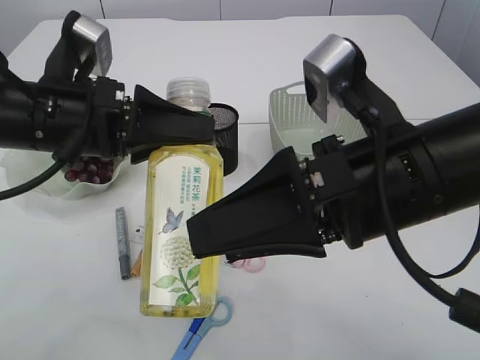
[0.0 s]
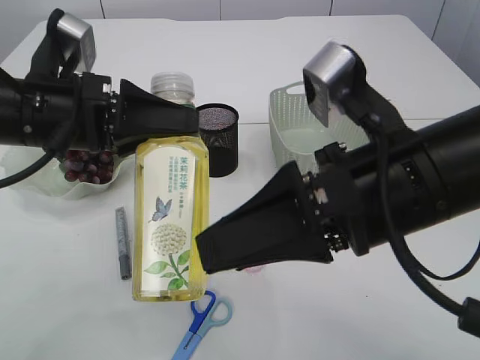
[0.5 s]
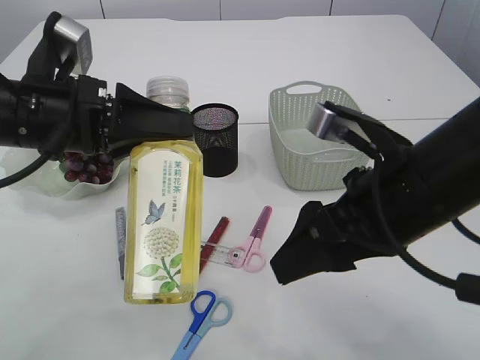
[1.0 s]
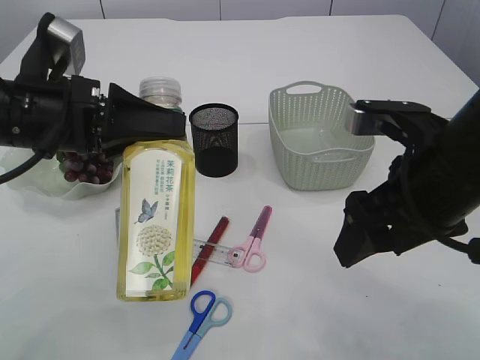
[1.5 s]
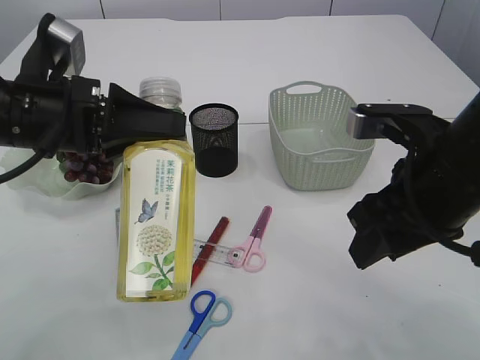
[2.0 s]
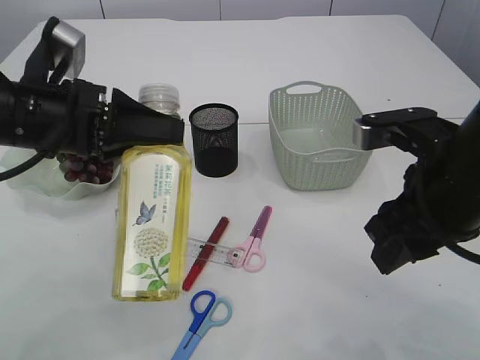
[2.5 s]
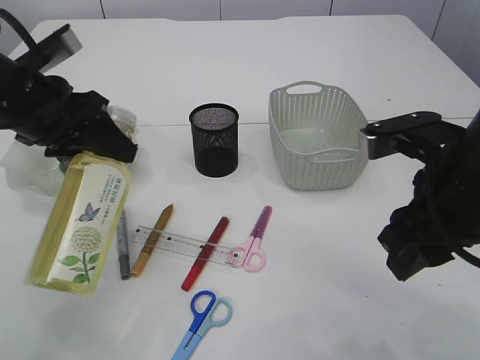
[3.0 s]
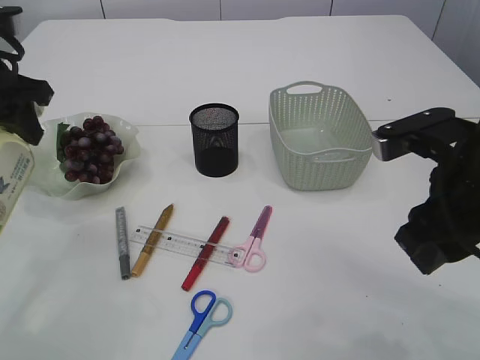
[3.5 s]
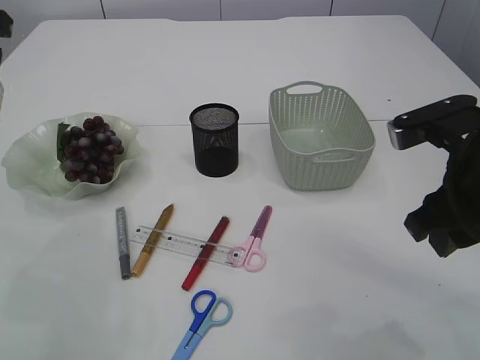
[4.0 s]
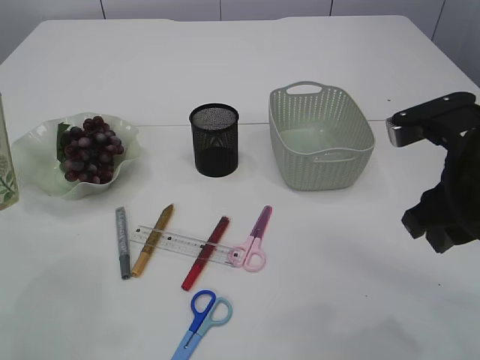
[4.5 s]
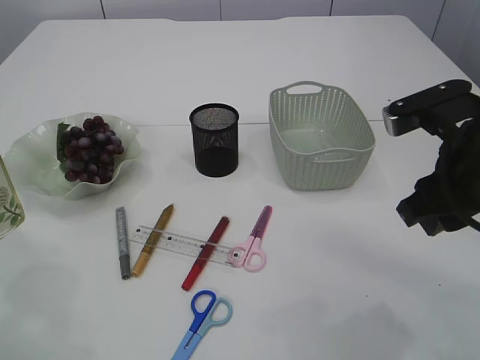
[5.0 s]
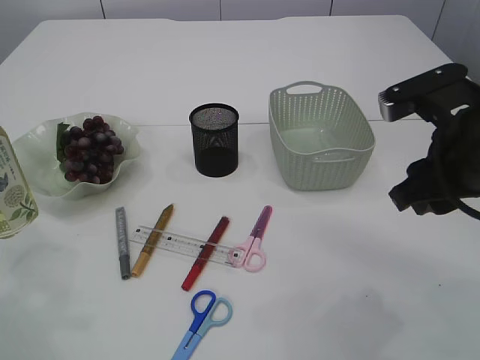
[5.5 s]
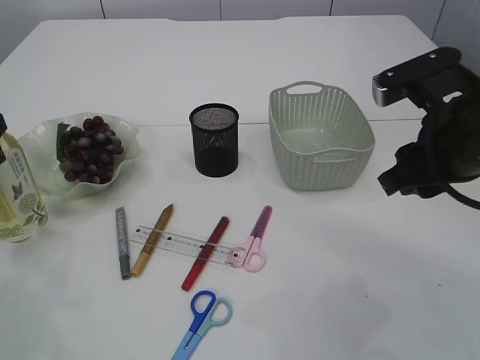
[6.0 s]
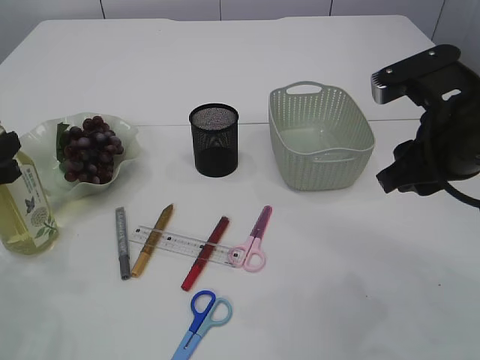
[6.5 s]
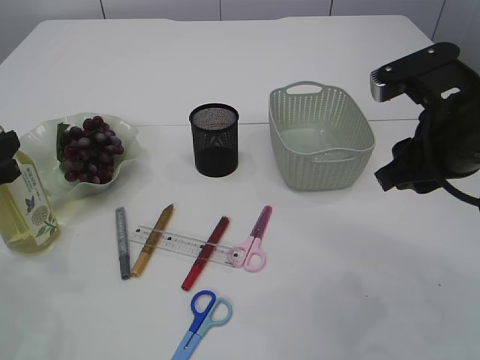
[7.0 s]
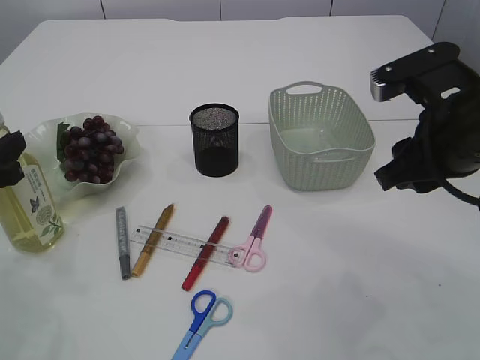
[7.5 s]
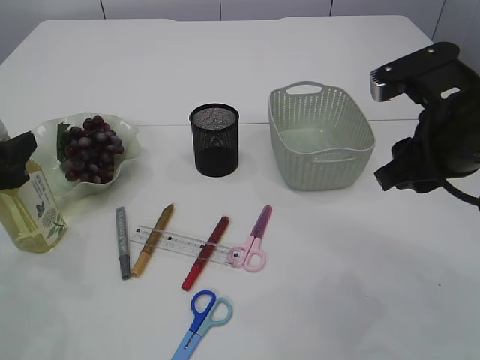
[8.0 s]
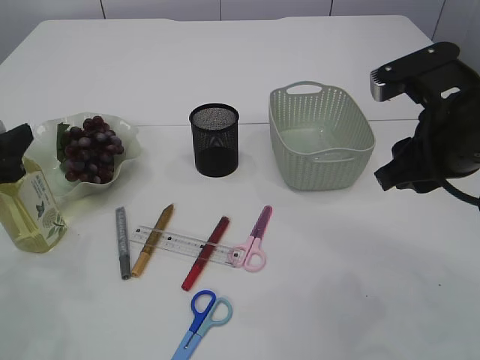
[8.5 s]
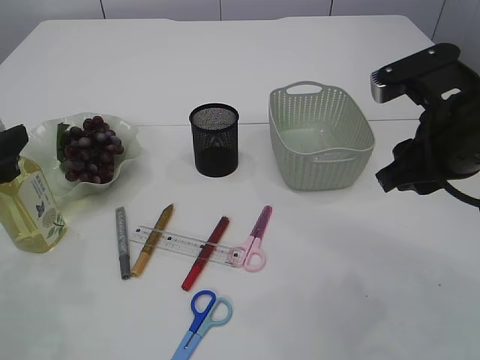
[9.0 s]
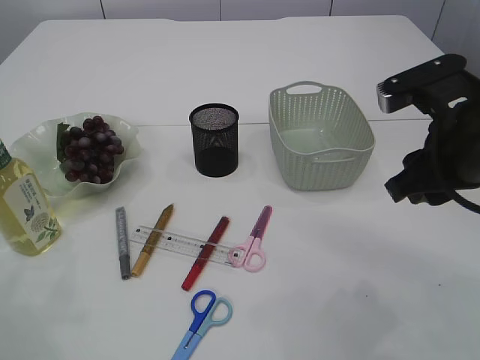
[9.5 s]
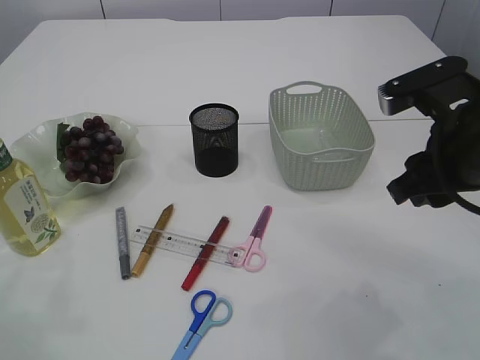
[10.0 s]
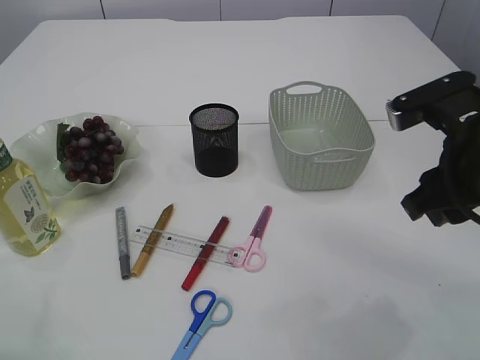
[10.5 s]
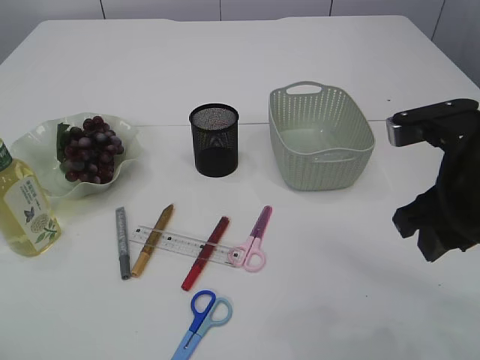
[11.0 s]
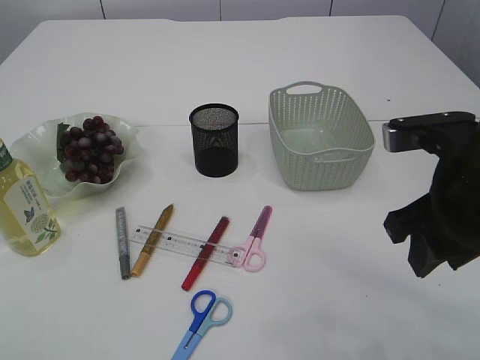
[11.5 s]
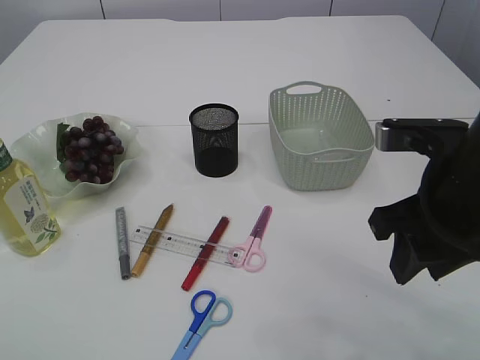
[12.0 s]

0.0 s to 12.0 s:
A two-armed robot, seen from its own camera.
Step, 1.0 to 10.5 s: Place the bottle.
0.0 to 2.0 s: The right gripper heads to the right, covering some 5 cm, and closes its fingers.
2.0 to 4.0 s: The left gripper goes some 15 cm upward and to the left.
4.0 to 6.0 s: The left gripper shifts about 15 cm downward and backward.
6.0 to 8.0 s: The left gripper opens its fingers.
8.0 to 10.0 s: The left gripper shifts roughly 10 cm upward.

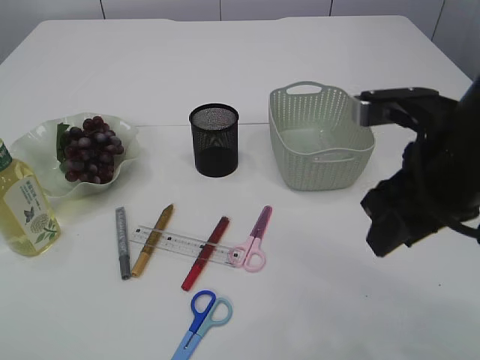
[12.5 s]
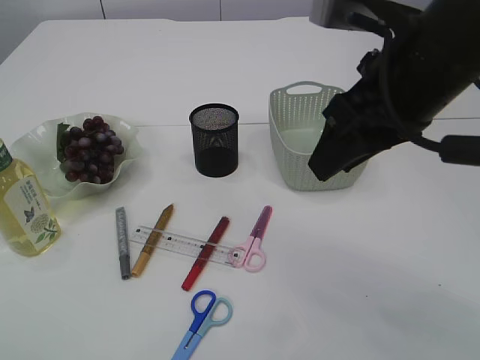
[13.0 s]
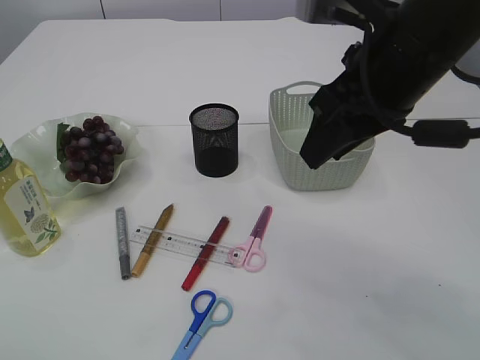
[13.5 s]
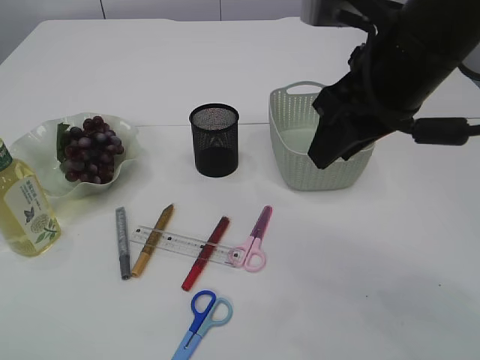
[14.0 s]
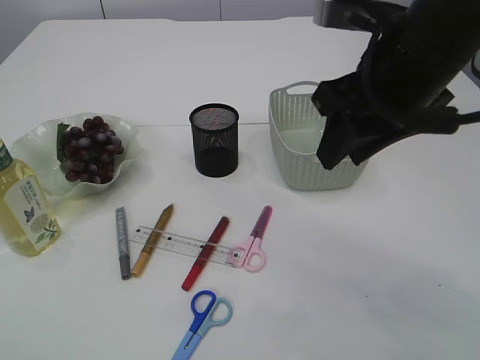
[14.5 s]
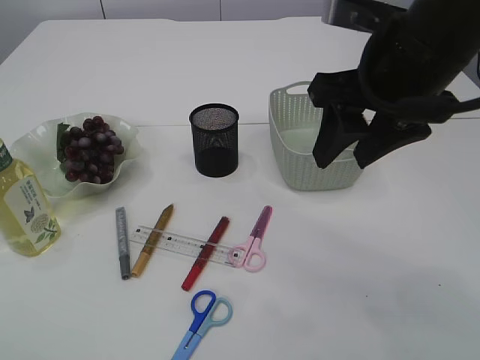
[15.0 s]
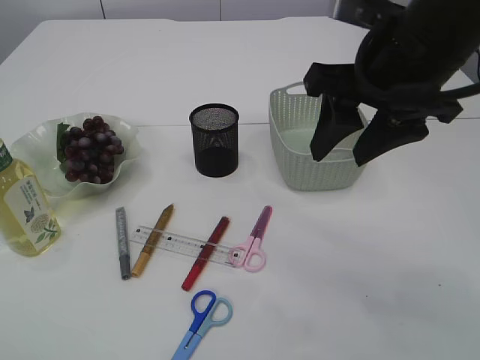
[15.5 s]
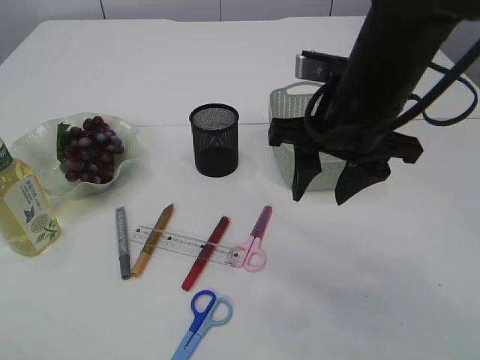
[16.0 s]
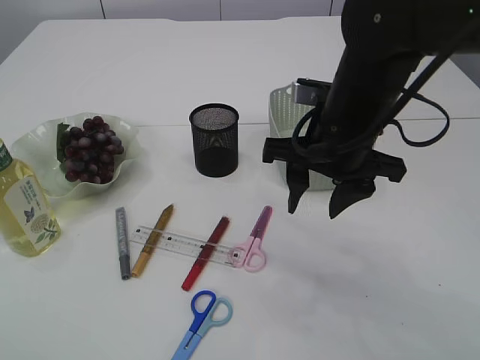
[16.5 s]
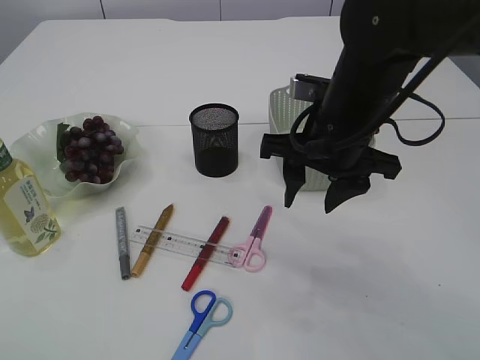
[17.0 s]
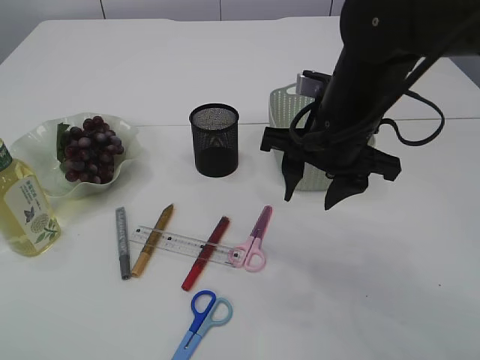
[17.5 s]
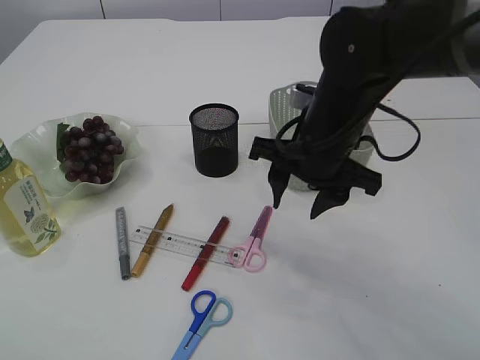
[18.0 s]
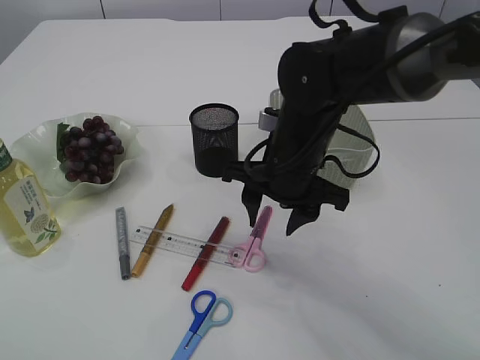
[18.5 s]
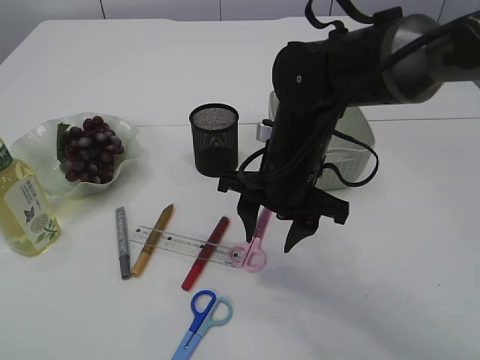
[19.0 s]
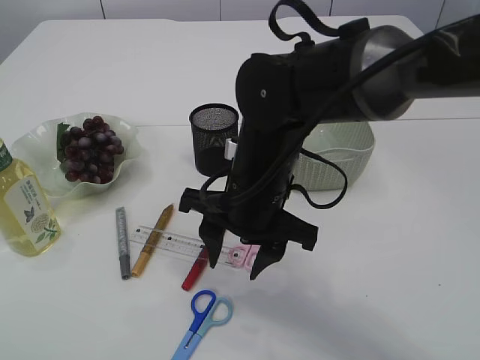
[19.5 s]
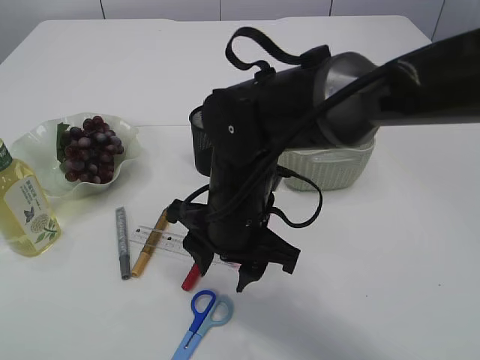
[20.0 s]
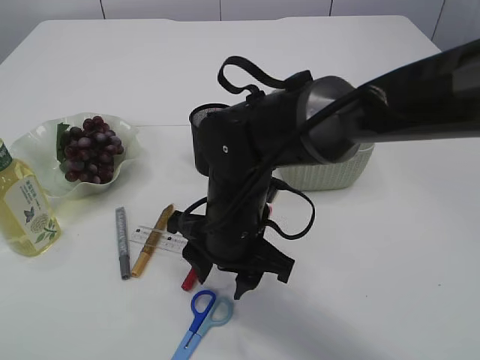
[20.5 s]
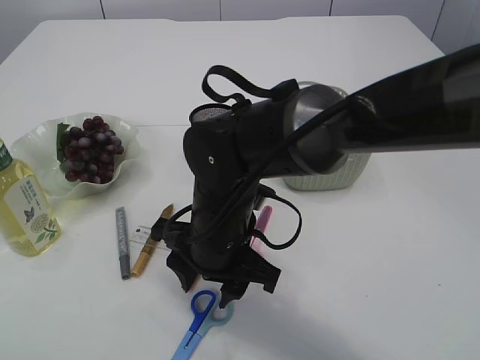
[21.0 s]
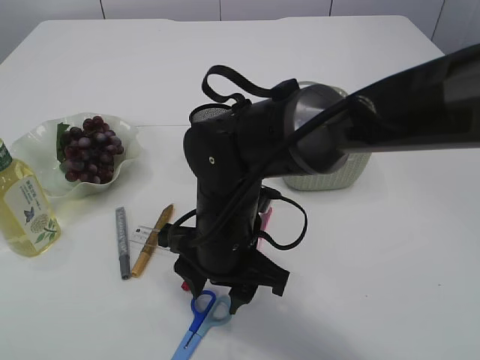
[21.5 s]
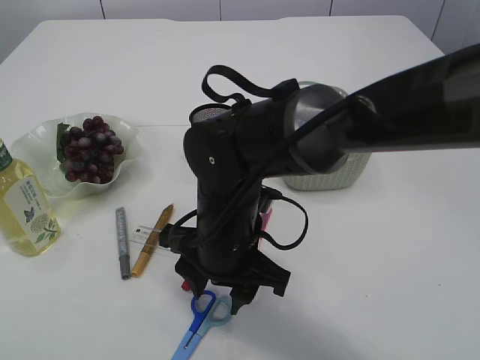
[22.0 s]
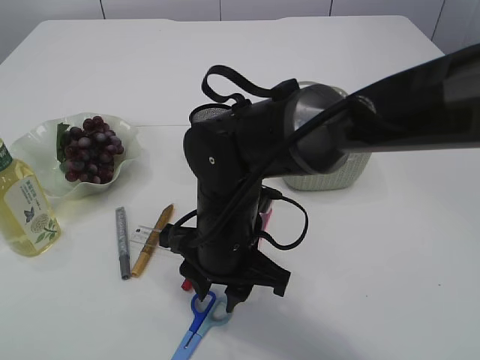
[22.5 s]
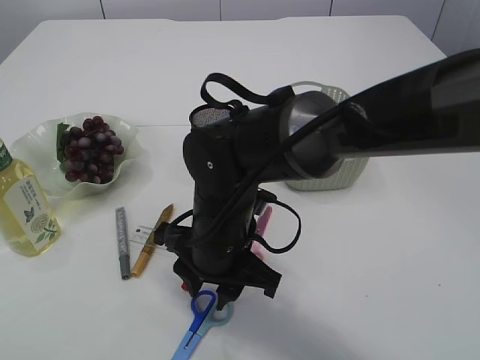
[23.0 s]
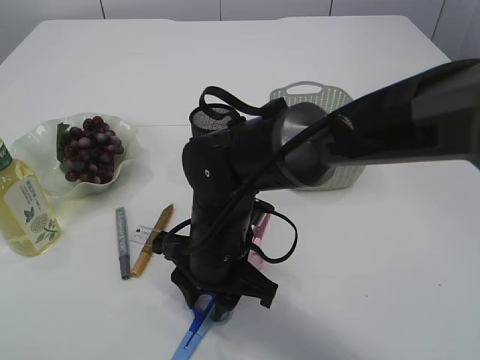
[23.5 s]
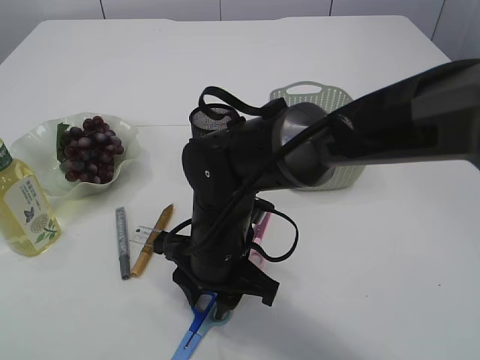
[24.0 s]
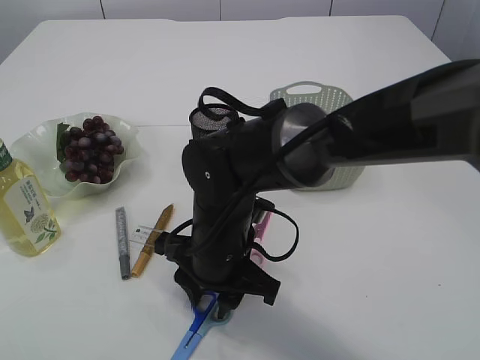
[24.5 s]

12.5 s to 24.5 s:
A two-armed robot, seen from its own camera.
12.5 to 14.5 s: The right gripper shifts some 5 cm upward and forward.
14.5 to 16.5 s: The right gripper travels downward by about 10 cm.
16.5 to 18.5 s: The right gripper goes approximately 5 cm downward.
18.5 to 20.5 s: The right gripper shifts roughly 5 cm to the left.
20.5 to 24.5 s: The grippers make only small movements.

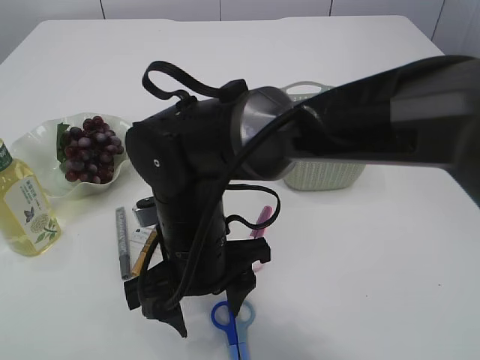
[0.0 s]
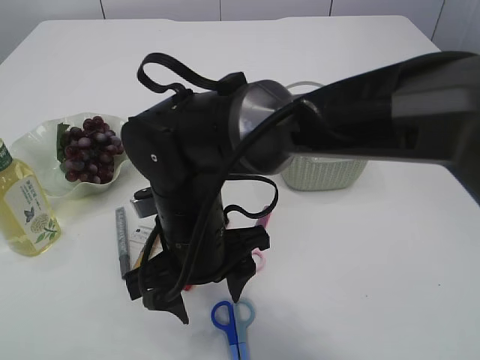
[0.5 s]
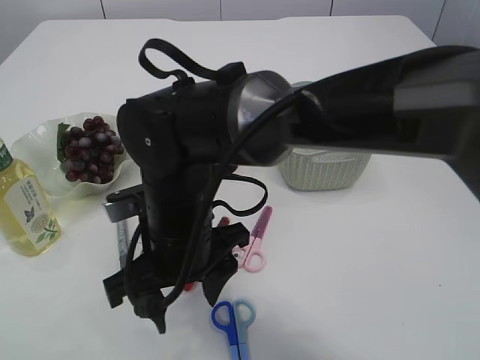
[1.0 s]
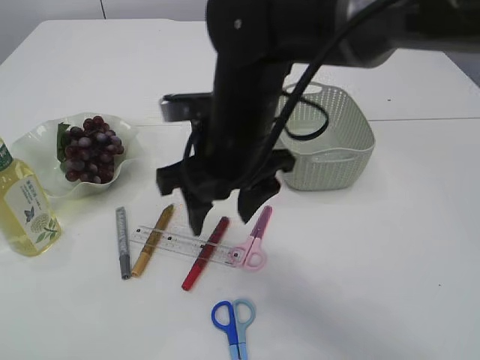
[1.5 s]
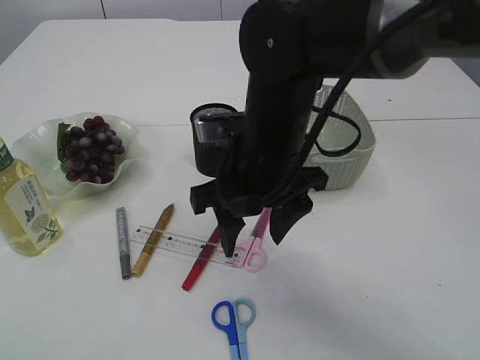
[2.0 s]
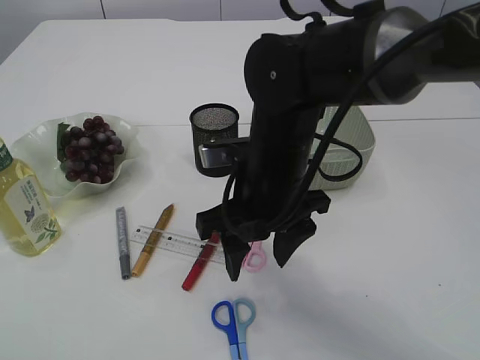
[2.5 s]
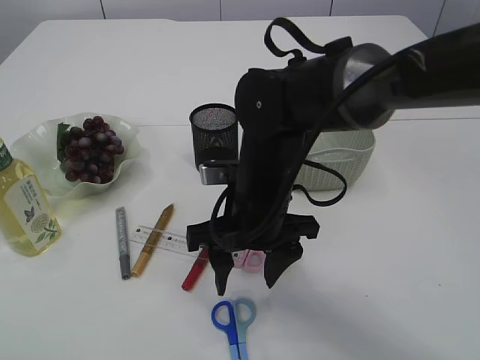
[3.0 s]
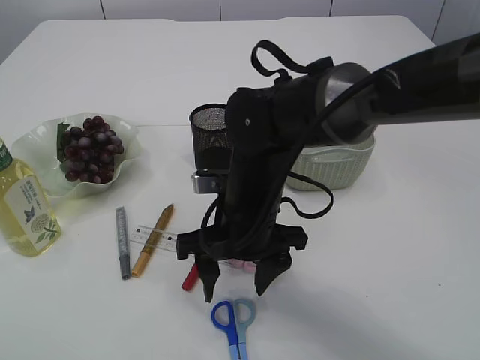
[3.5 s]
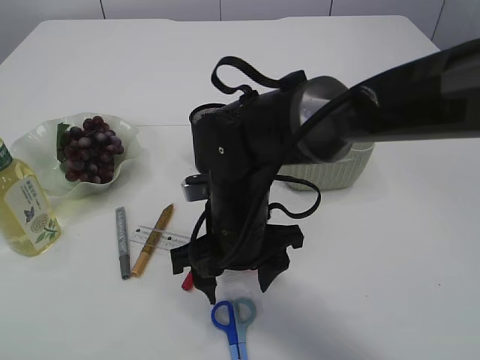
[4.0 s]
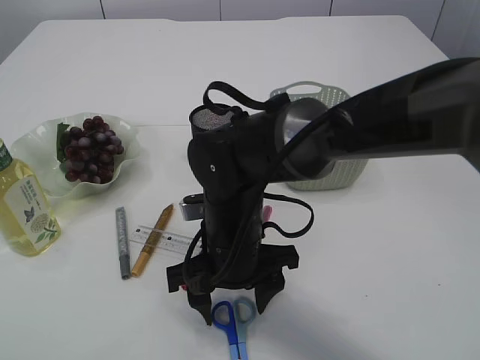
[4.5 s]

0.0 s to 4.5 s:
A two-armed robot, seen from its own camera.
0.0 to 2.0 s: The right gripper moves to the right and upward, approximately 10 cm.
2.0 to 4.5 s: The right gripper goes approximately 10 cm downward.
